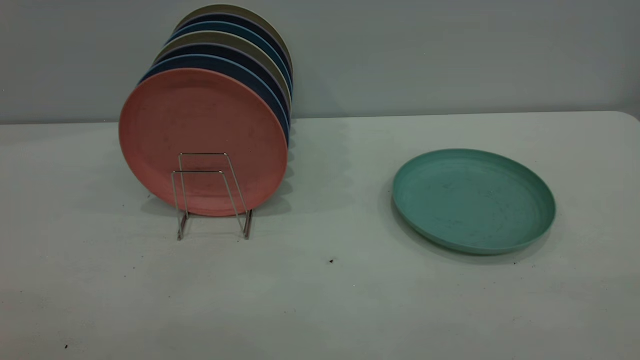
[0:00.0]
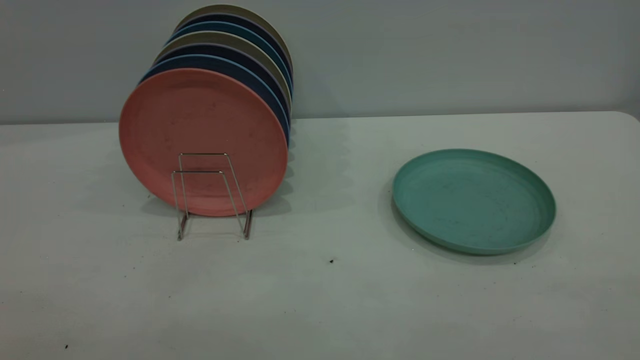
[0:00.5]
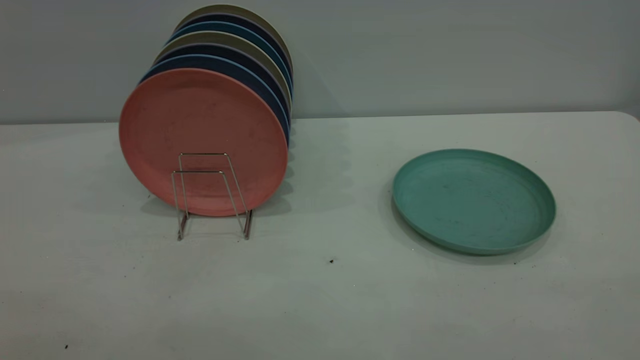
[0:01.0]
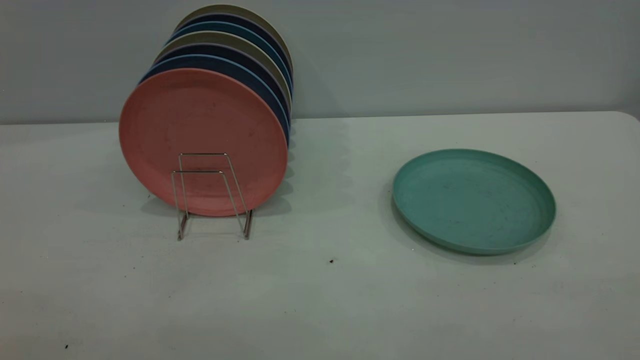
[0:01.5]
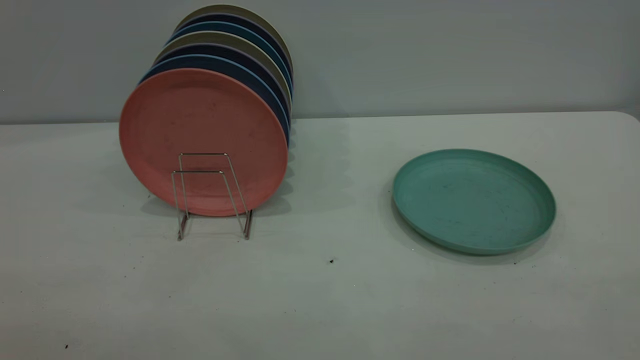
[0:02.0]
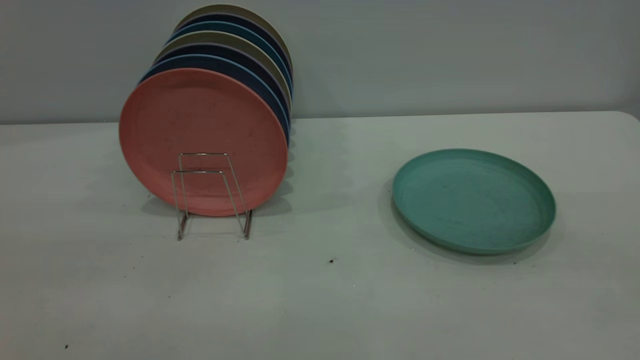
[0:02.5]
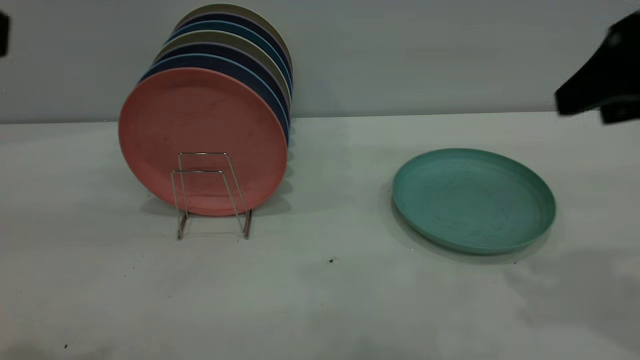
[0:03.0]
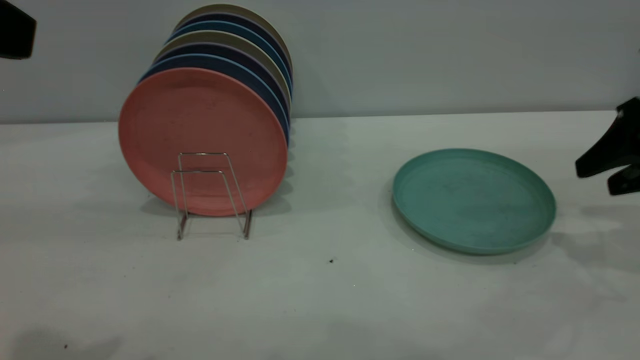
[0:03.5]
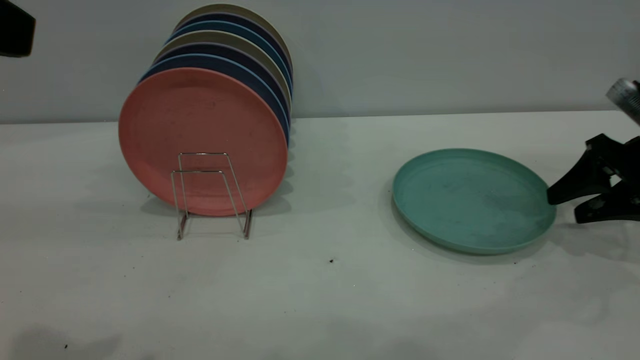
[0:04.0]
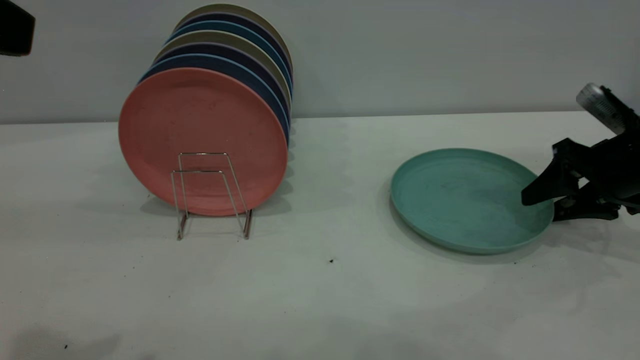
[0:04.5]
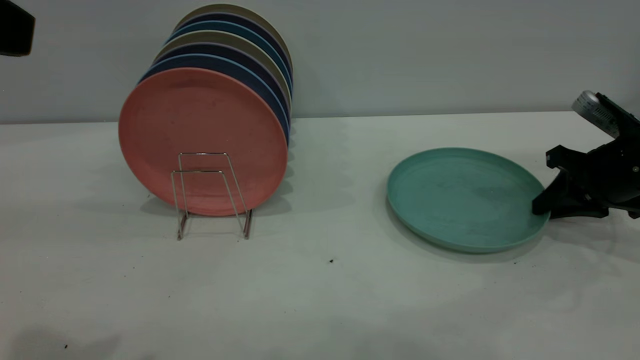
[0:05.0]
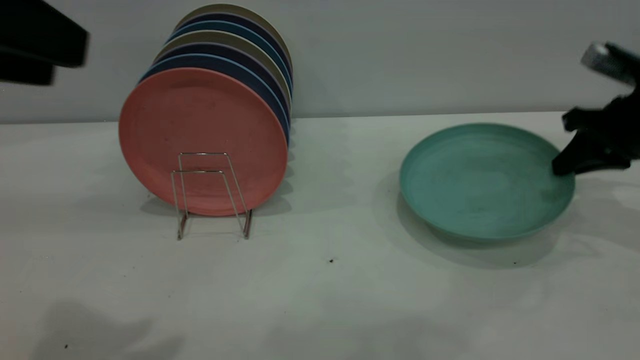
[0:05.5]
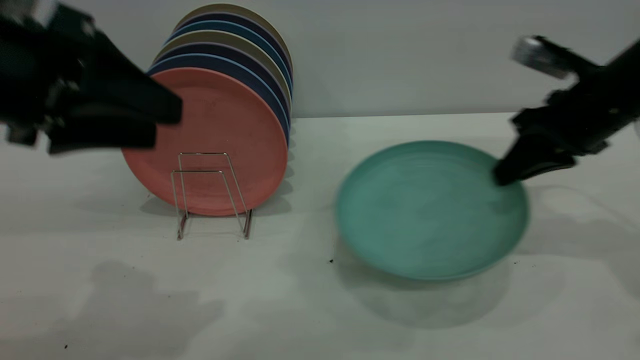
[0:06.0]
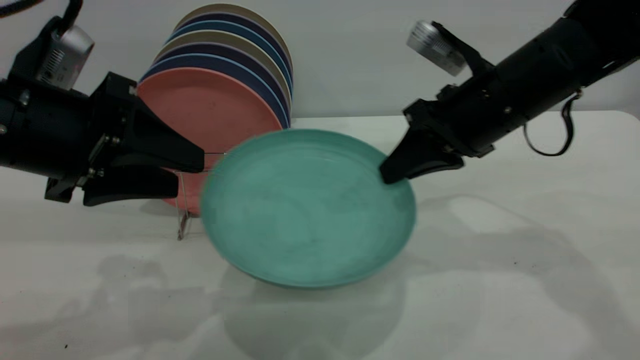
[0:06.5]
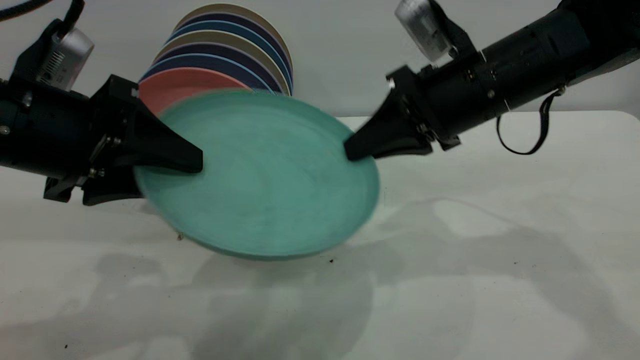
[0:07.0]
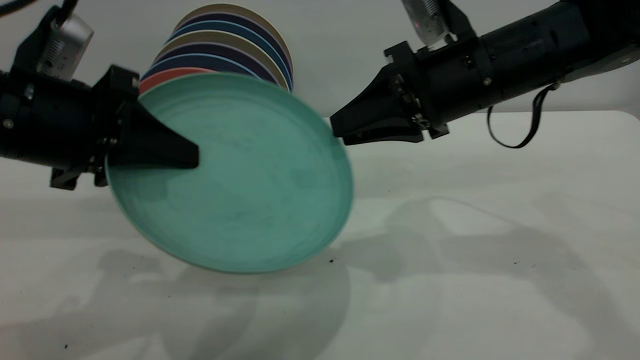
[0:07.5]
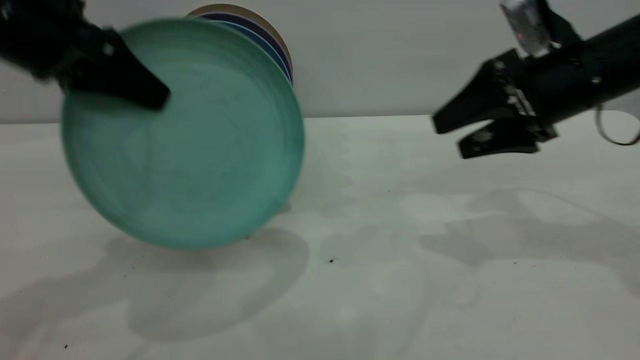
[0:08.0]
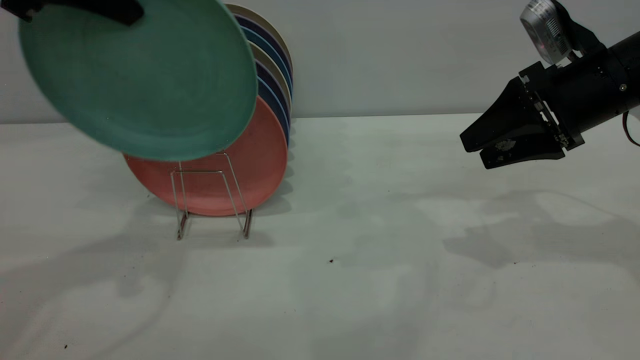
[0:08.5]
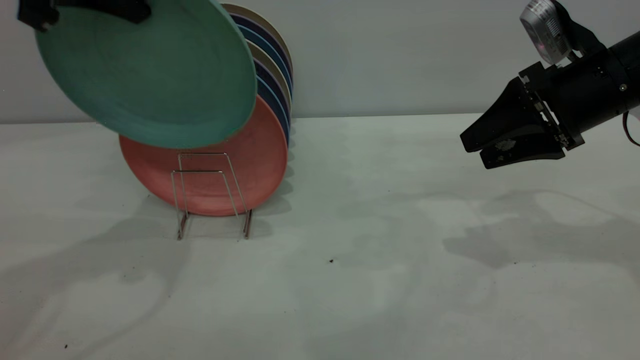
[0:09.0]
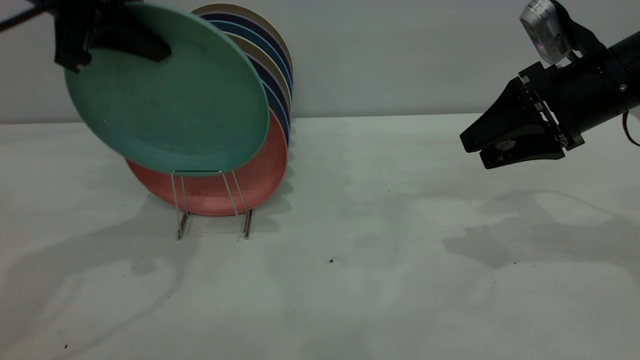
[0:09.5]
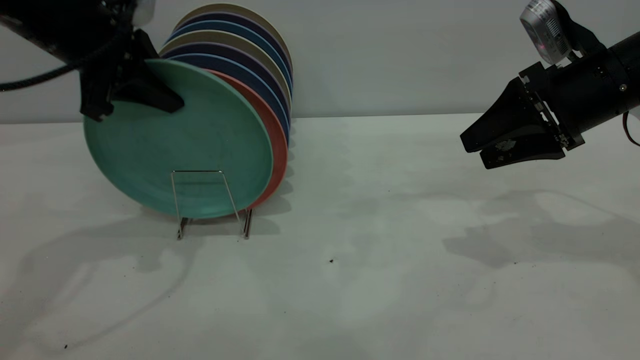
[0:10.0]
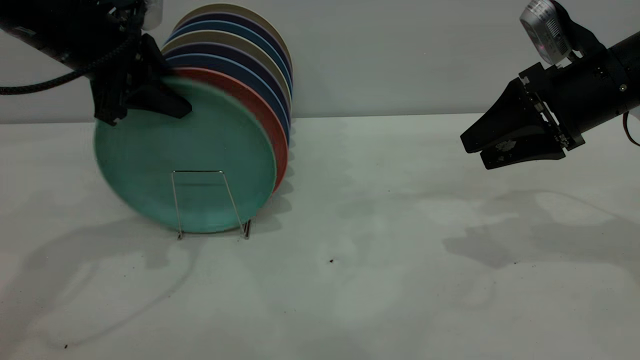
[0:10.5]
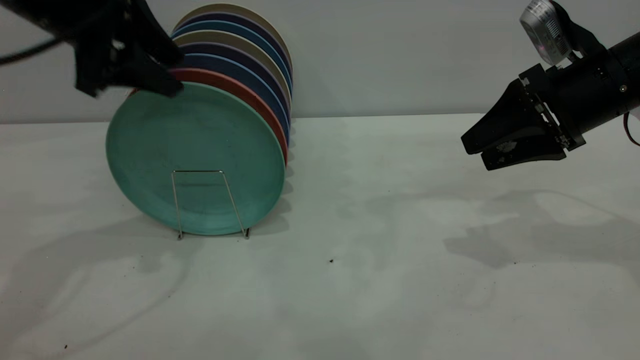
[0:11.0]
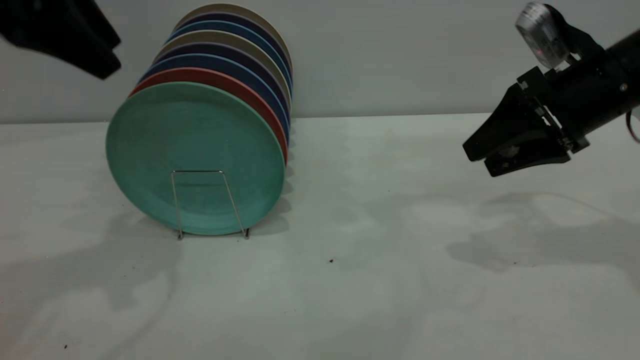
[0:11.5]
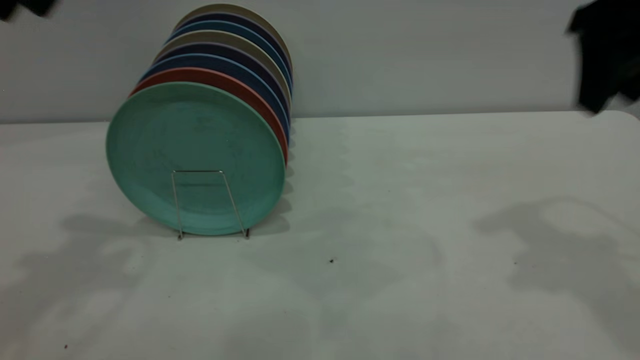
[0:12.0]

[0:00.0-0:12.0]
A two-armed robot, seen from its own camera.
Task of the whole recording: the right gripper grasp the green plate, the right gripper pass the green plate to the left gripper, and the left gripper place the green plate on the plate rack.
Step, 0:00.0 to 0:05.5: Pick up the plate with the right gripper.
Step, 0:06.0 to 0:07.5: Pass the plate from the right gripper to the left gripper.
Step, 0:08.0 to 0:11.0: Place the plate on the shelf.
0:02.0 to 0:04.0: The left gripper heads forward, covering approximately 20 cm. Meanwhile the right gripper moves forward and downward, about 50 cm.
0:04.0 to 0:06.0: The left gripper heads downward and forward, covering approximately 15 cm; the right gripper heads to the left and upward, covering about 10 cm, and closes up.
0:06.0 to 0:08.0: The right gripper reaches about 10 cm to the left, then returns, and opens up. Meanwhile the left gripper shifts some 5 cm forward, and closes up.
0:08.0 to 0:10.0: The left gripper moves forward, about 5 cm.
0:10.0 to 0:12.0: The right gripper moves upward, roughly 15 cm; the left gripper travels upward and backward by approximately 15 cm, and opens up.
